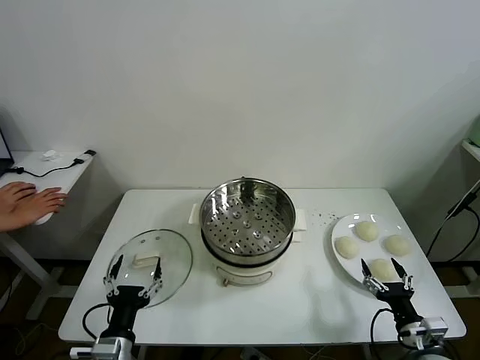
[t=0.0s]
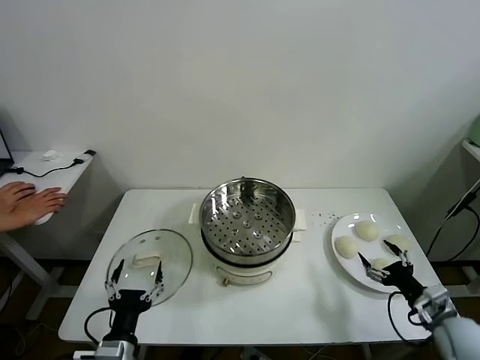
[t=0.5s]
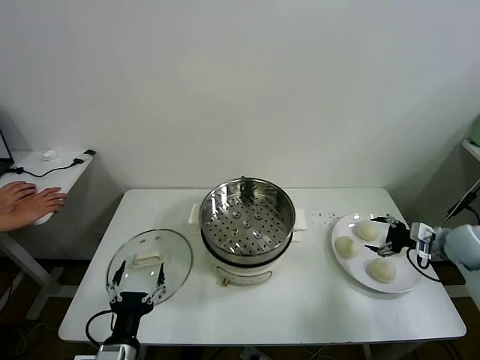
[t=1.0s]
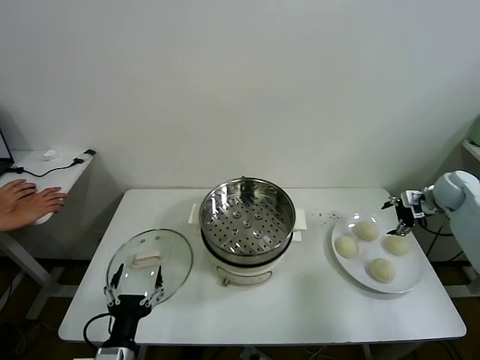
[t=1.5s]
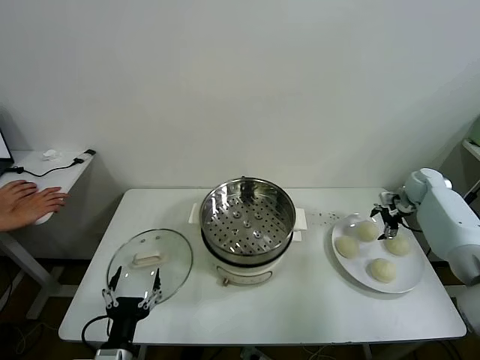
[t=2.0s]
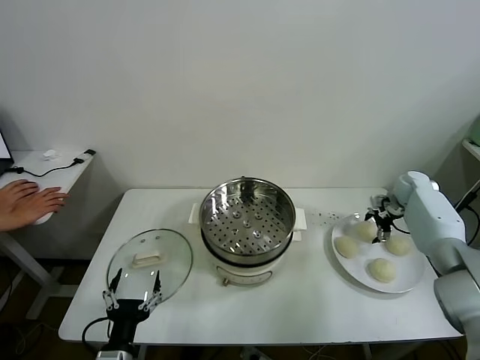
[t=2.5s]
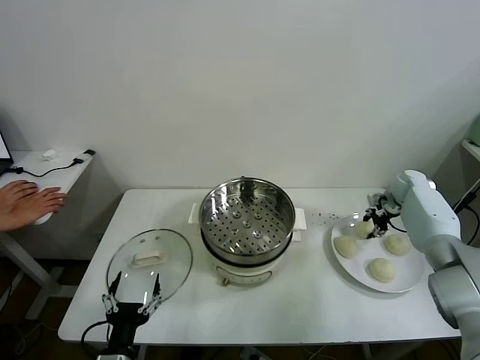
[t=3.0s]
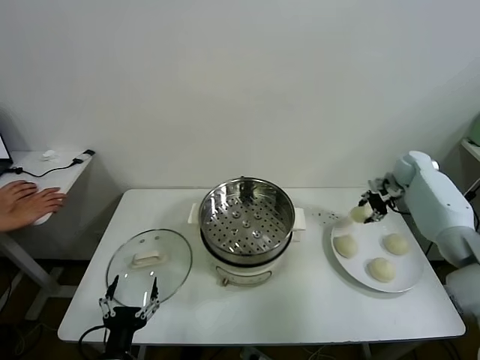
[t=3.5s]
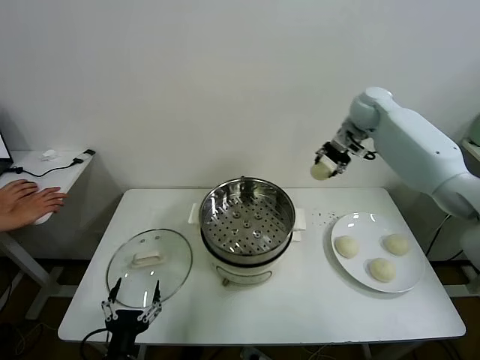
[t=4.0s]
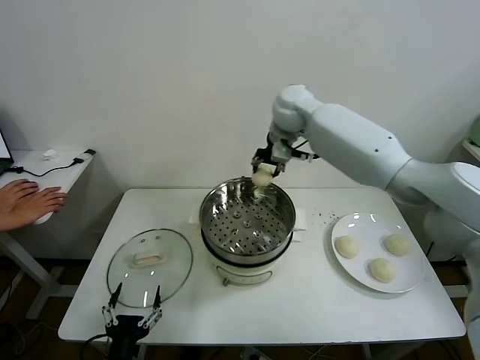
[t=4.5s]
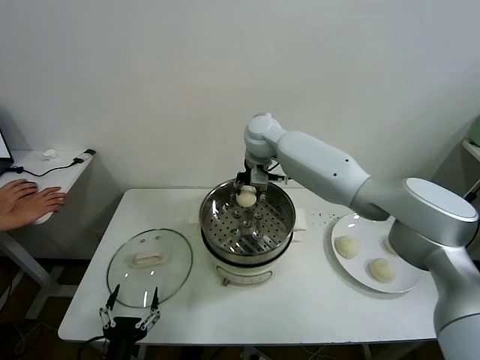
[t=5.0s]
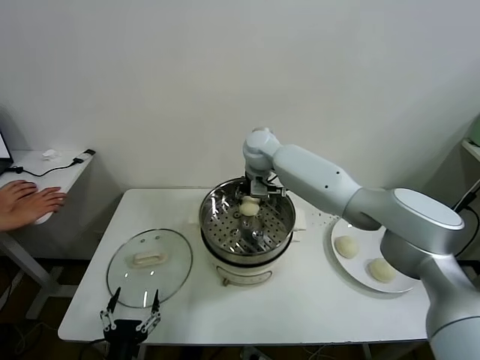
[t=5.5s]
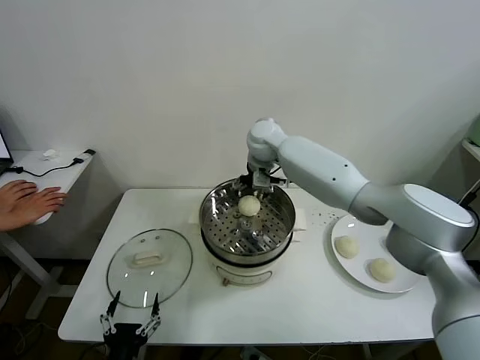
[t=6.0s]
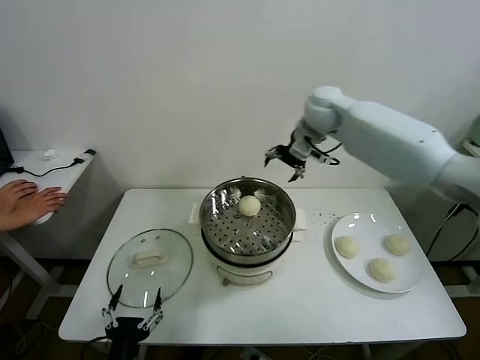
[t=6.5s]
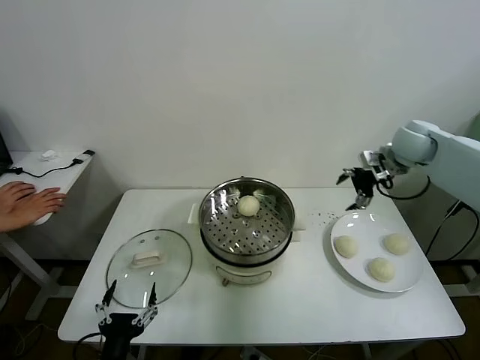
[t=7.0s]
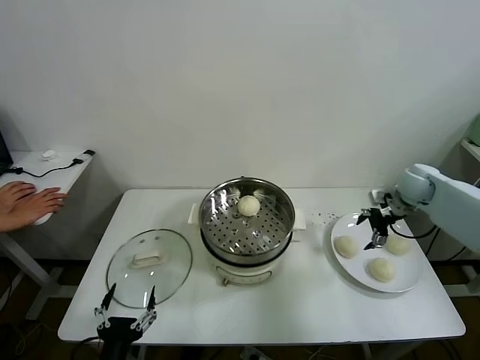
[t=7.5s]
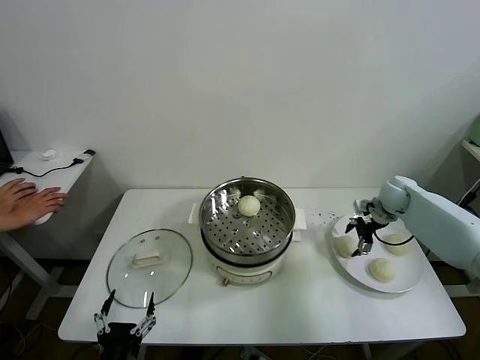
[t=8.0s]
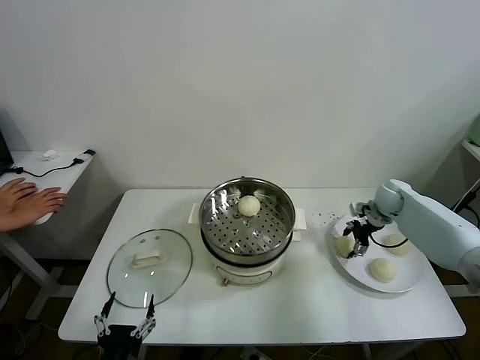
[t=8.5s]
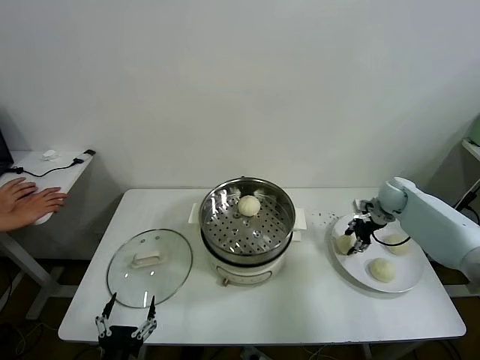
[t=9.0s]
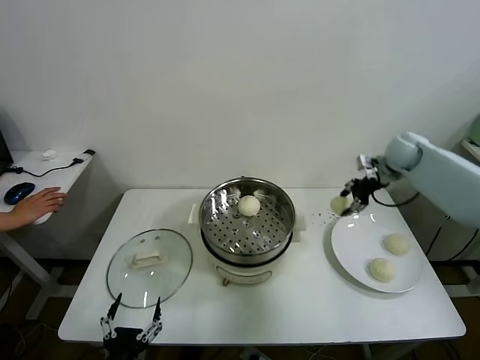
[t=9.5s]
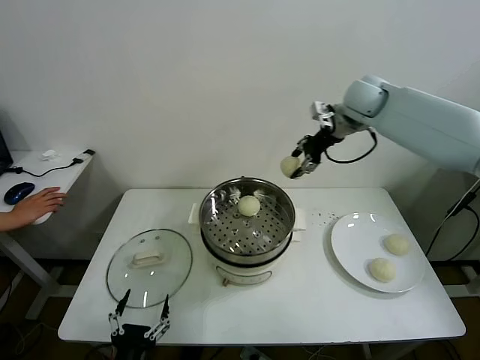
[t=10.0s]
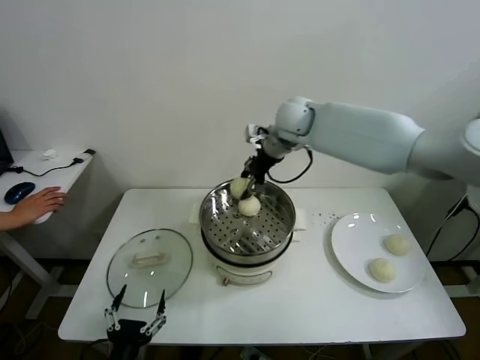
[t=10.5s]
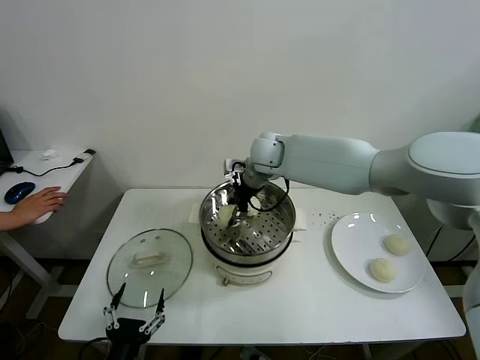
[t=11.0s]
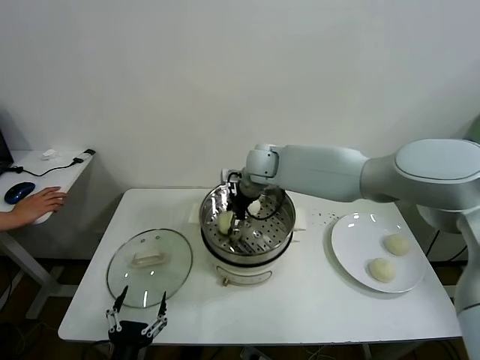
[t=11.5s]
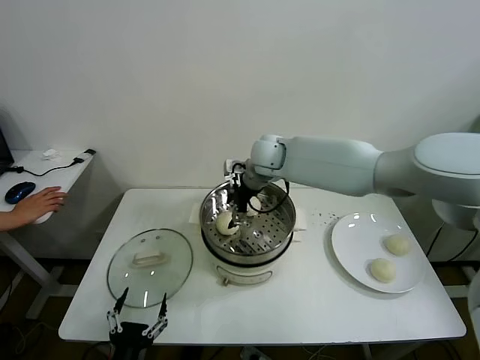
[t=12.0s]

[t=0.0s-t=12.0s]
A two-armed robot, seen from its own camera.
Task of the whole recording: take steamed baozi put them in steamer.
Step, t=0.0s to t=2.5s: Grasp the baozi in the plate with right gripper.
Step, t=3.0s to t=5.5s: Place the baozi on the steamer with right gripper.
Step, t=6.0s to t=8.0s: Grasp the baozi in the plate with right gripper.
Step, t=9.0s to t=11.5s: Place the baozi on the steamer with right gripper.
t=2.0s to t=4.0s: The right gripper is displaced to the left and upward by roughly 35 cm, and closes.
t=4.0s to t=6.0s: The right gripper heads to the left, covering roughly 20 cm, and opens up.
t=6.0s to t=8.0s: The right gripper shifts some 40 cm to the right and downward.
t=8.0s to t=10.0s: The right gripper is displaced upward and to the left by roughly 30 cm, and closes its fingers.
t=10.0s to t=12.0s: The right gripper moves to the left and downward, roughly 20 cm, and opens.

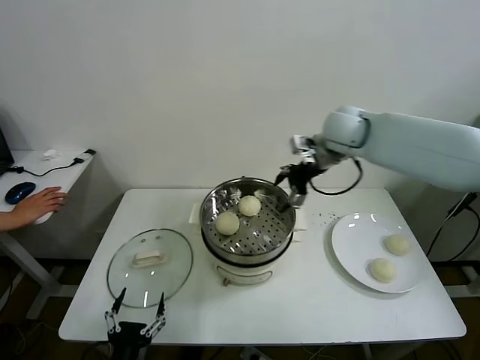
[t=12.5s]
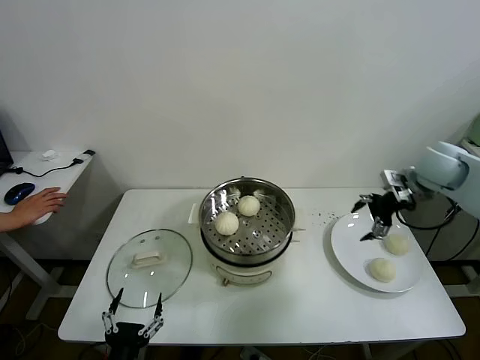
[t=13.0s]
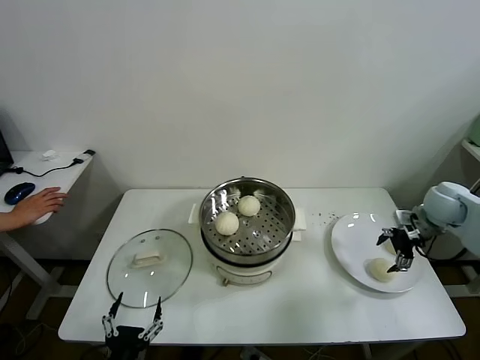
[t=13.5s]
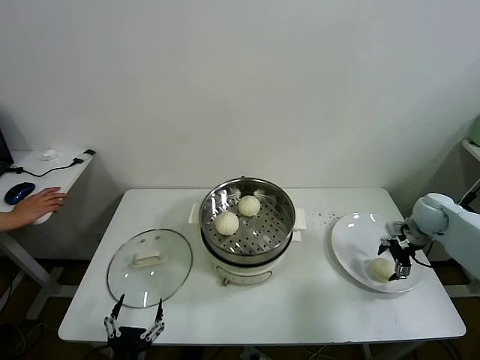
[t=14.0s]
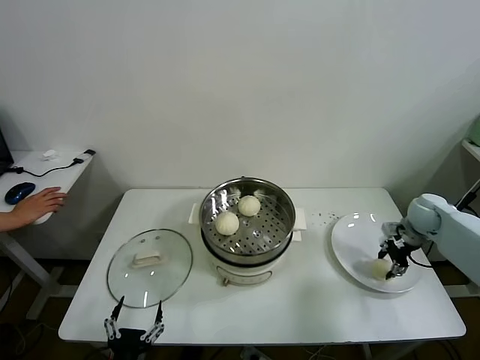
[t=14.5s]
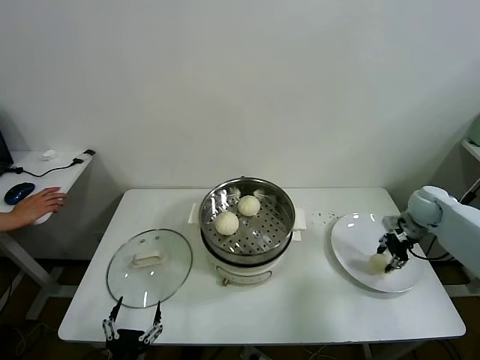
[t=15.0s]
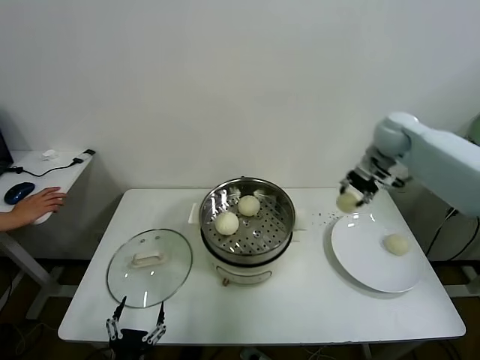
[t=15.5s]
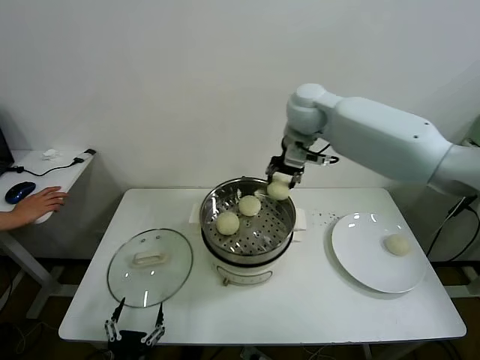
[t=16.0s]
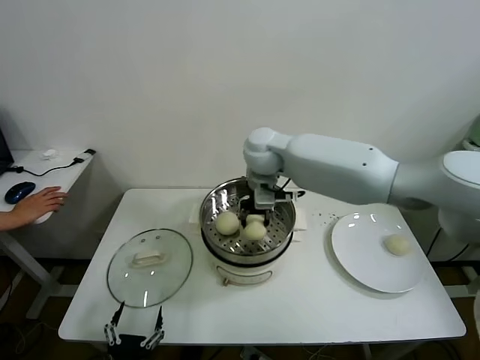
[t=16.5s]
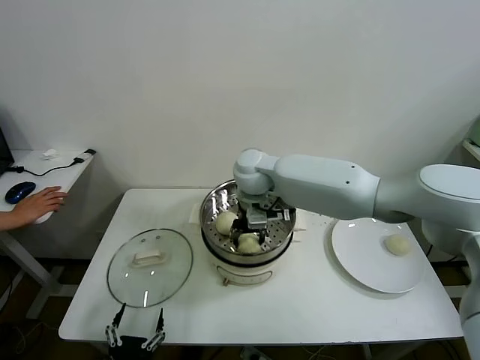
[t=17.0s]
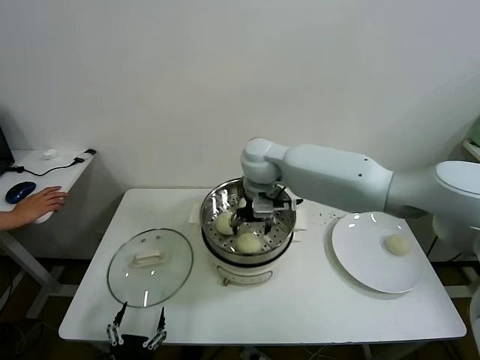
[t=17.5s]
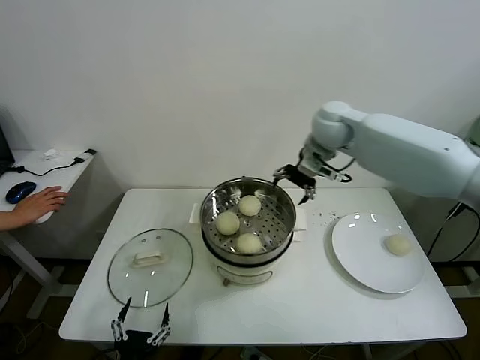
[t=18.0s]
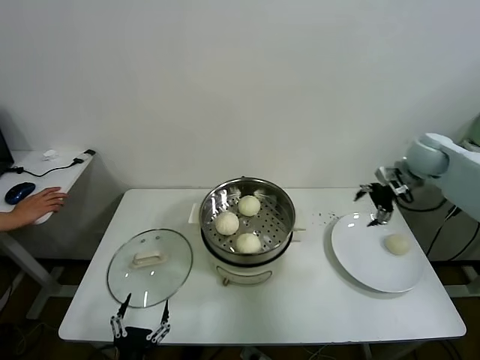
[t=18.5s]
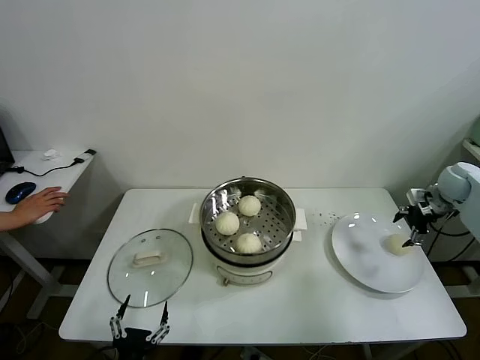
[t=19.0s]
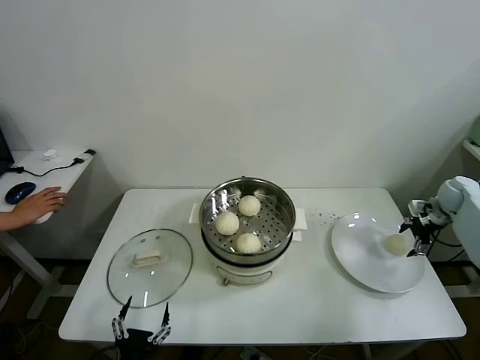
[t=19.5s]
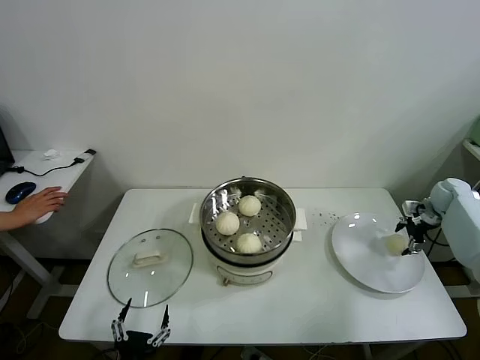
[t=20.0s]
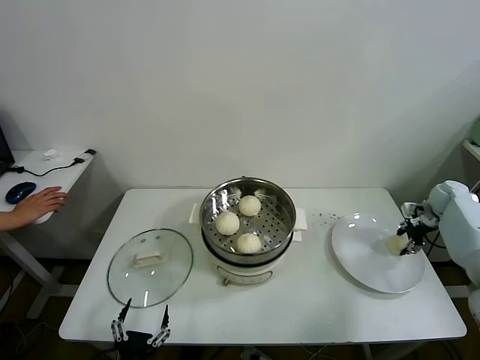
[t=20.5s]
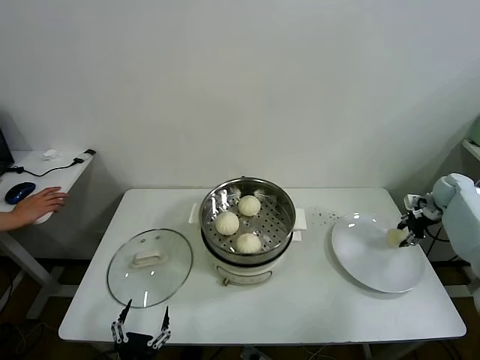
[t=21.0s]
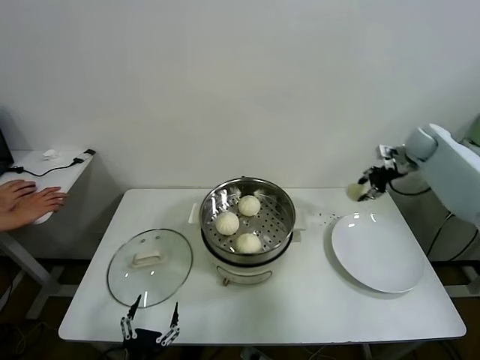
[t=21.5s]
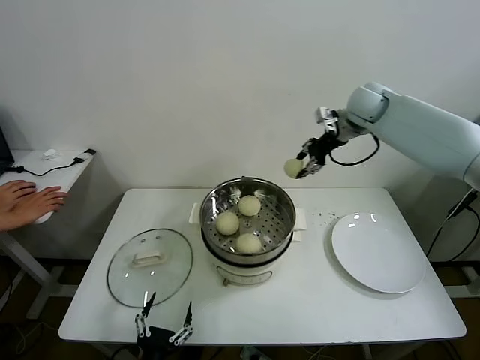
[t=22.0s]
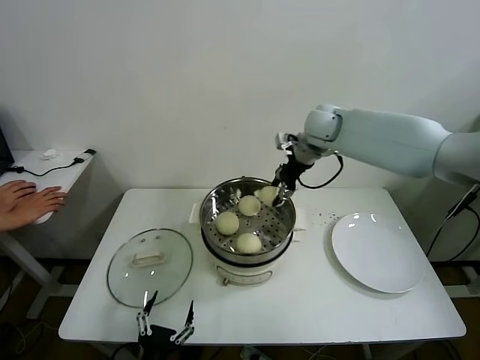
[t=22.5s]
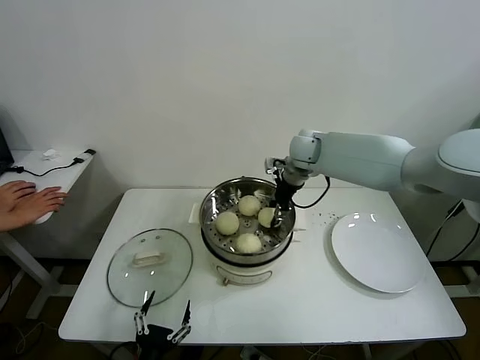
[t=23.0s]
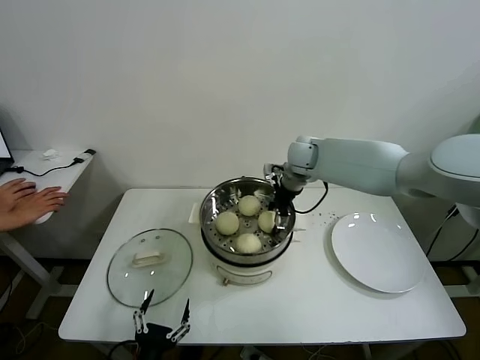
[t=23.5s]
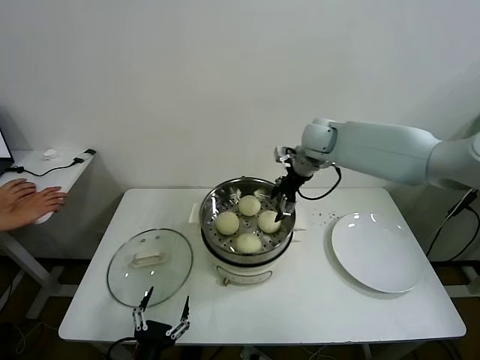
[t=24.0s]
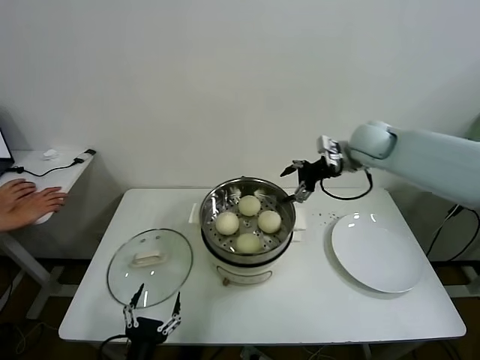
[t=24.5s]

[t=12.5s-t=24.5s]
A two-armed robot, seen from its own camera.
Task of the whole recording: take steamed baozi put them in steamer.
Step, t=12.5s to t=14.0s: Grasp the baozi in the plate with right gripper.
Step, t=15.0s to t=17.0s: Place the baozi on the steamer with right gripper.
Step, t=17.5s to t=20.0s: Grasp the baozi in the plate with right gripper.
Step, t=20.5s to t=23.0s: Place the baozi on the steamer with right gripper.
t=12.5s to t=14.5s: The right gripper goes some 30 cm to the right and downward, and closes up.
t=14.5s to t=16.5s: The right gripper moves to the left and upward, approximately 50 cm.
t=16.5s to t=18.5s: The right gripper travels to the right by some 40 cm, and opens.
t=18.5s to t=20.5s: The right gripper heads downward and to the right, covering some 20 cm, and closes up.
t=20.5s to t=22.5s: The right gripper moves to the left and upward, about 40 cm.
t=22.5s to t=24.5s: The right gripper heads to the right, covering some 10 cm, and opens up.

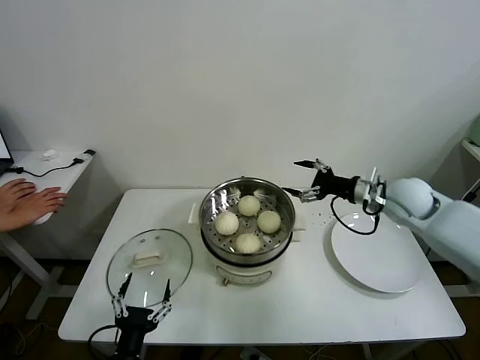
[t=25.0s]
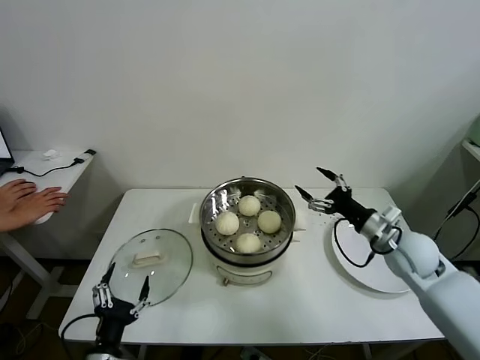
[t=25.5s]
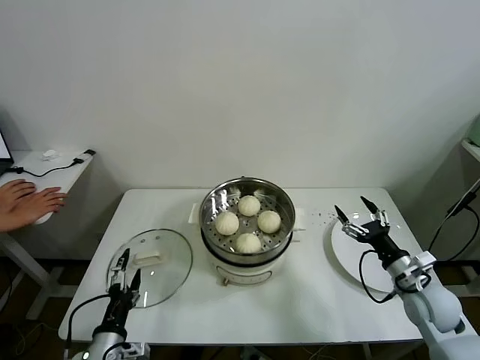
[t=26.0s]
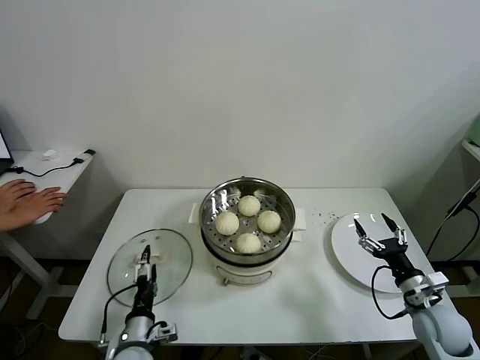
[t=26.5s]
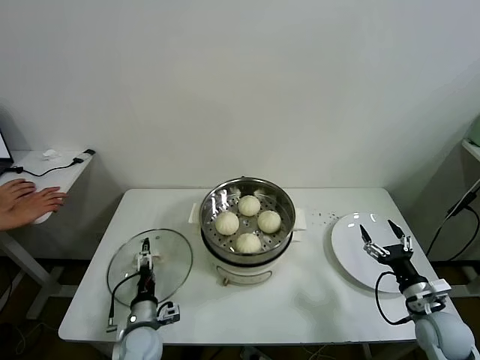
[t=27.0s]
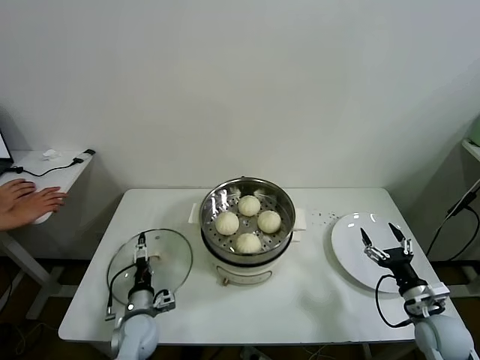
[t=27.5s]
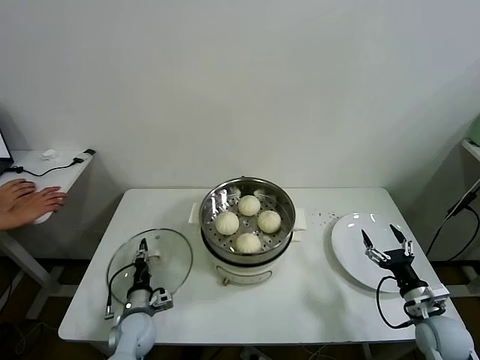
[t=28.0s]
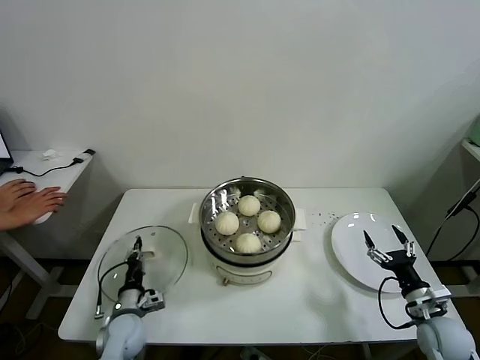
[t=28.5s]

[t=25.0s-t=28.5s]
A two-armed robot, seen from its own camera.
Task of the whole recording: take steamed baozi put them in steamer.
Step, t=25.0s to t=28.0s: Grasp the pot lid with left gripper.
t=25.0s to t=27.0s: The left gripper shifts some 15 cm forward and downward. The right gripper heads backward and downward, covering roughly 30 cm.
t=27.0s to t=28.5s: The left gripper shifts by about 5 cm, and closes.
